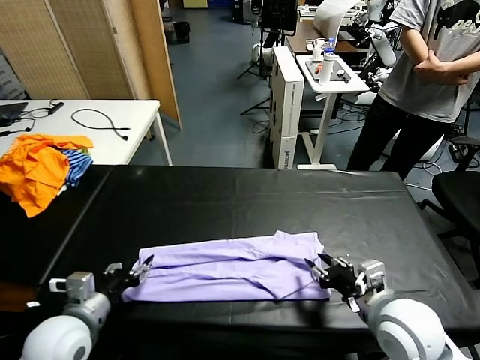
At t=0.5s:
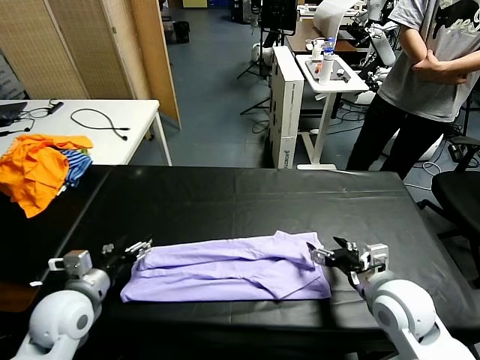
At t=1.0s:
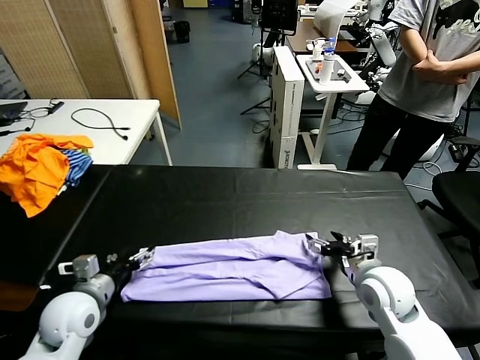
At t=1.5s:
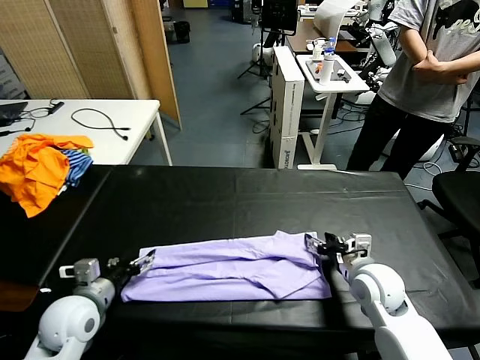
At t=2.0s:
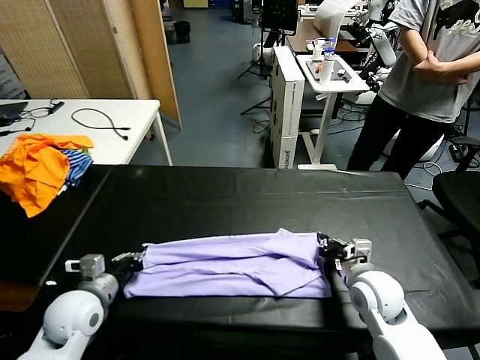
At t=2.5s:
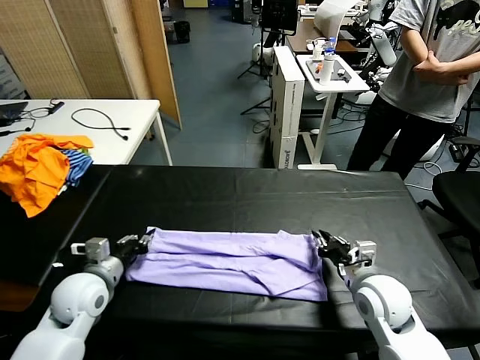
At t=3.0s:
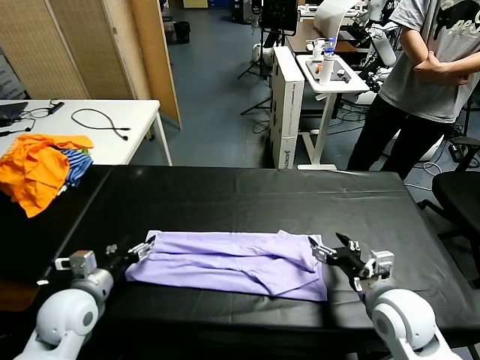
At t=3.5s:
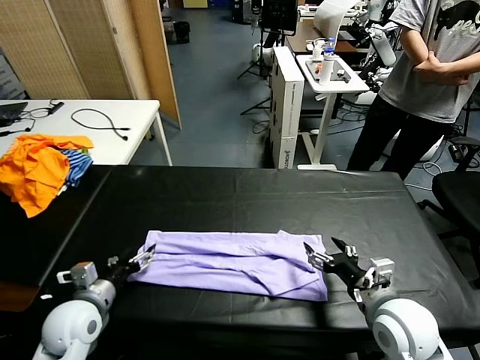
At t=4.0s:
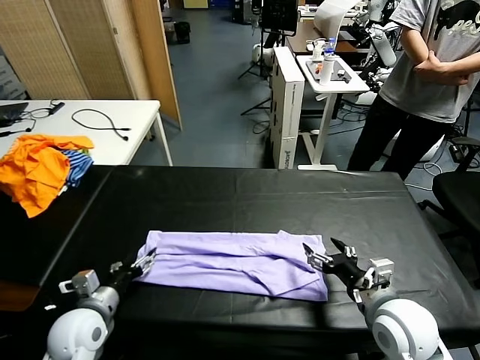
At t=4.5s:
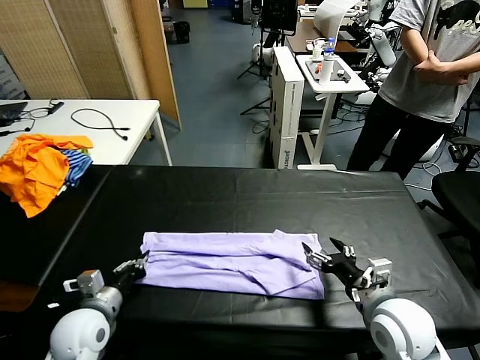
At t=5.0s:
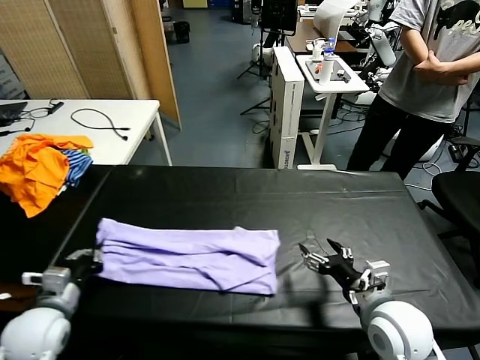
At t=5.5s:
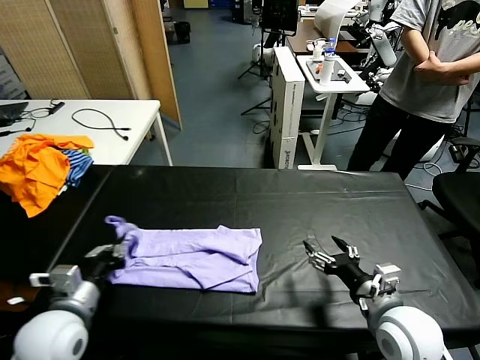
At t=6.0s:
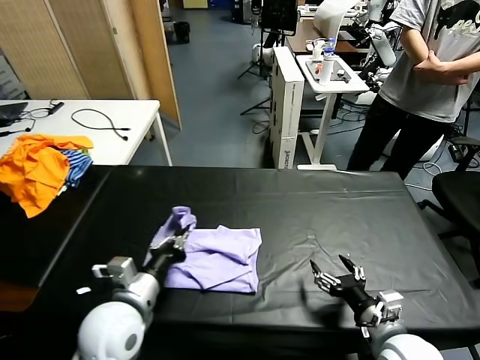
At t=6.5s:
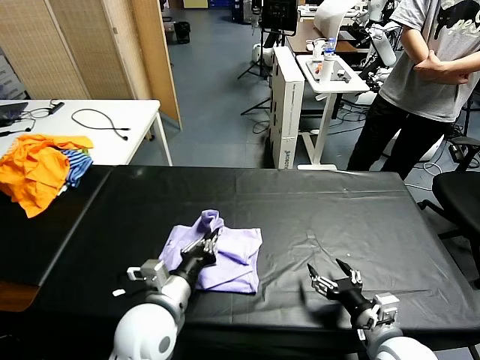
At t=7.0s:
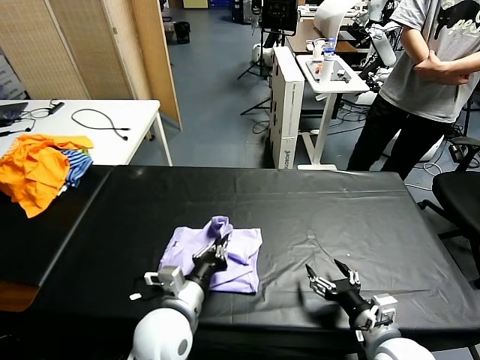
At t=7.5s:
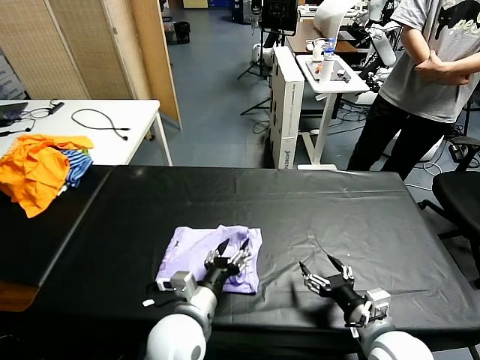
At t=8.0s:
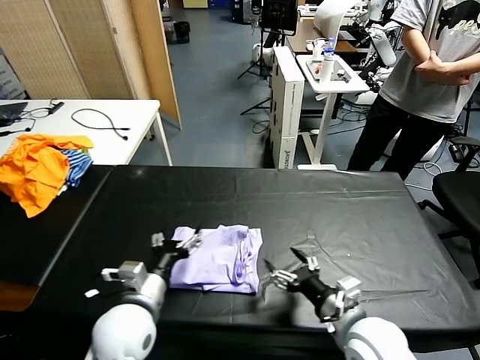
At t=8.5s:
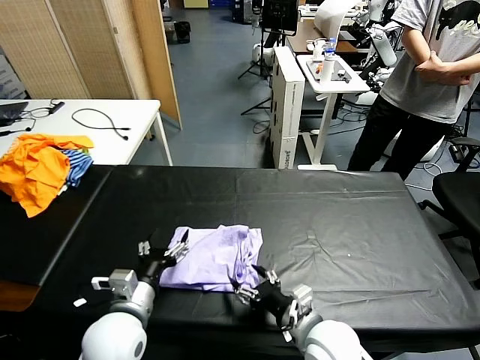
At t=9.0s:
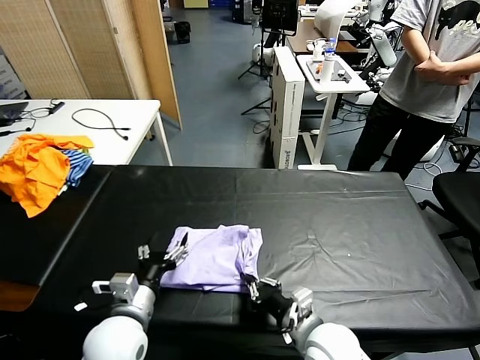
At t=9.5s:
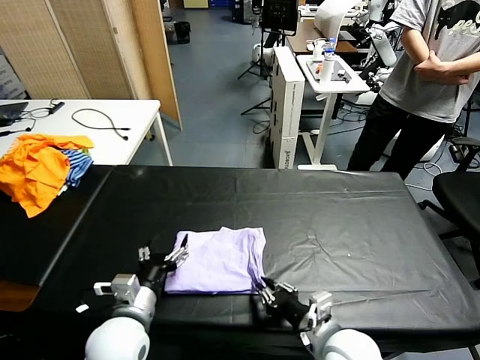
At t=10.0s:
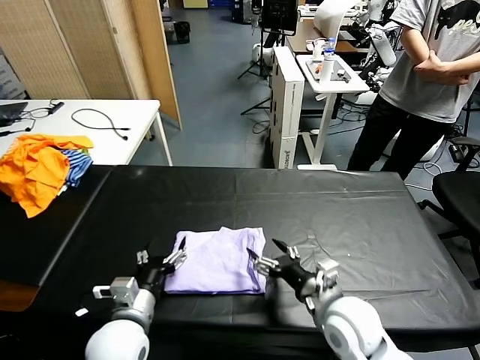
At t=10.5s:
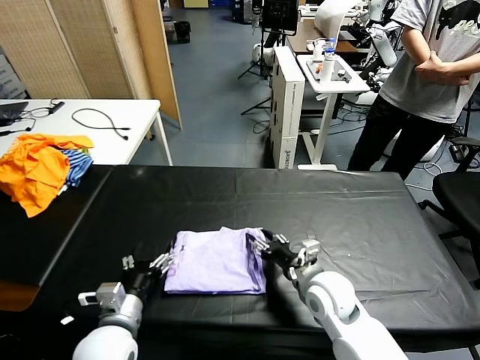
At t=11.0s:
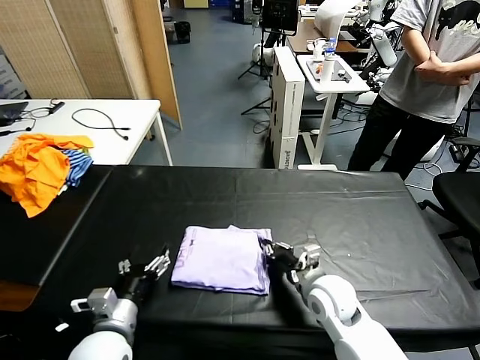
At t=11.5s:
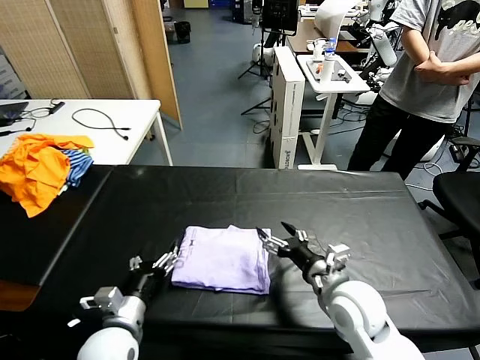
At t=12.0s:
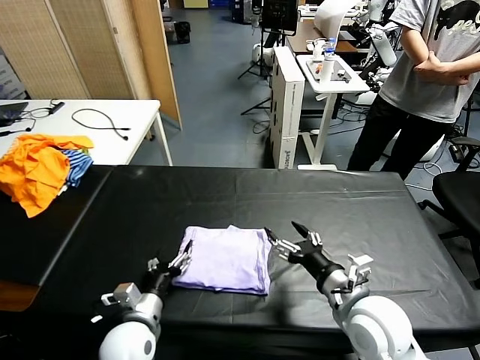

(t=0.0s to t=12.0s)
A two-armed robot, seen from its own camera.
Task of the whole recording: fold and organize the clothes.
Step, t=0.0s - t=2.5s: use both grippers to drag the upper edge of the fabric backward and fold it over the lower edge.
Step, t=3.0s - t=4.0s: use the left gripper to clamp the left edge of the fabric.
Step, t=5.0s - t=11.0s: use the left gripper to drag the left edge of the fabric to the left and folds it over the right edge.
t=0.0s - t=2.0s: The right gripper moves downward and forward, approximately 10 cm, and closes. The left gripper heads forward, covering approximately 5 cm, and closes.
t=2.0s - t=4.0s: The right gripper is displaced backward by about 5 cm, and opens its fingers, while the left gripper opens its fingers.
t=4.0s - t=6.0s: The right gripper moves some 5 cm; the left gripper travels to the right and upward by about 15 cm, and closes up.
t=6.0s - t=8.0s: The left gripper goes to the right and returns, roughly 10 cm each way, and opens its fingers. Meanwhile the right gripper travels to the left by some 10 cm.
t=8.0s - t=10.0s: The right gripper closes and opens again.
t=10.0s - t=12.0s: The left gripper travels downward by roughly 5 cm, while the right gripper shifts by approximately 5 cm, and closes, then reopens.

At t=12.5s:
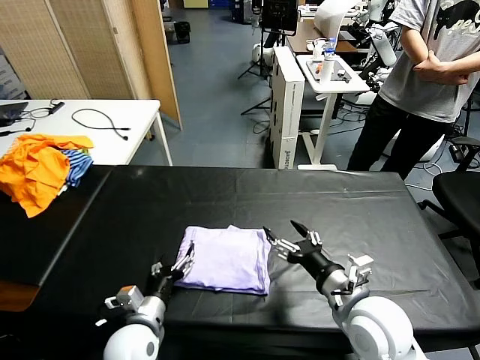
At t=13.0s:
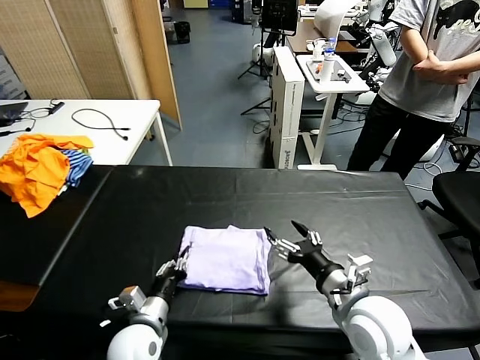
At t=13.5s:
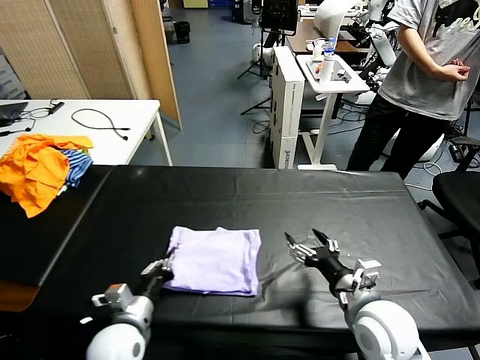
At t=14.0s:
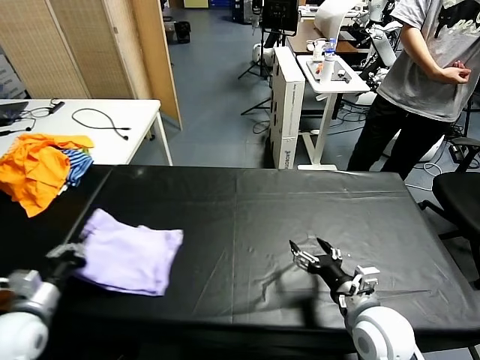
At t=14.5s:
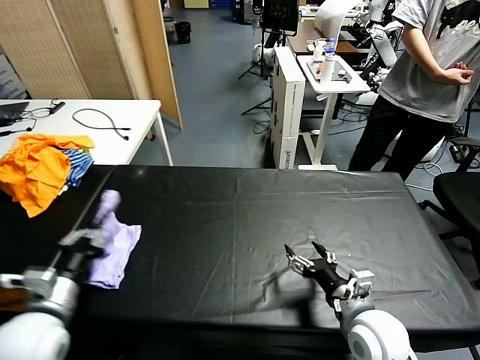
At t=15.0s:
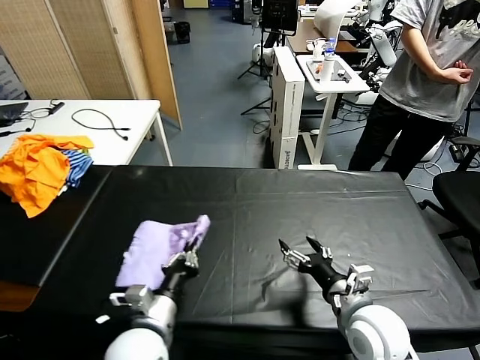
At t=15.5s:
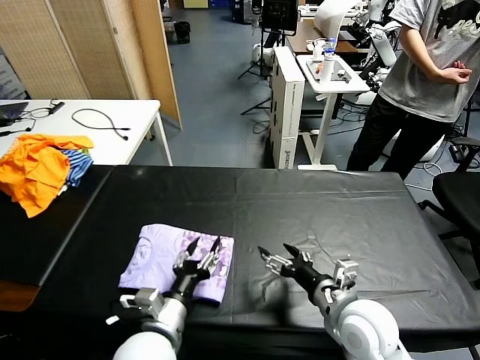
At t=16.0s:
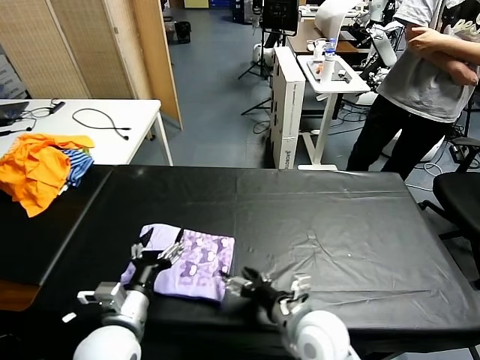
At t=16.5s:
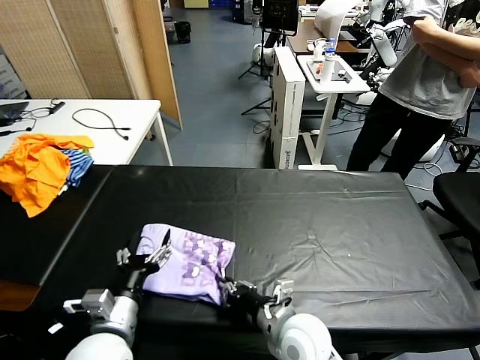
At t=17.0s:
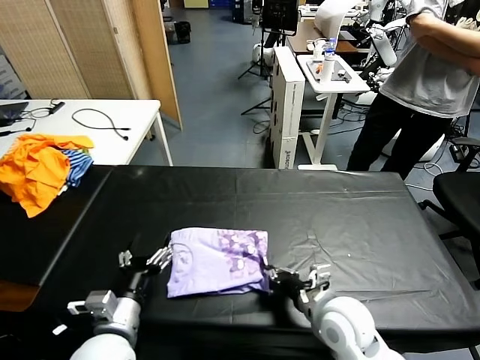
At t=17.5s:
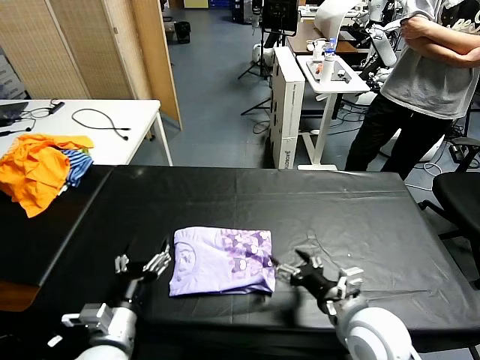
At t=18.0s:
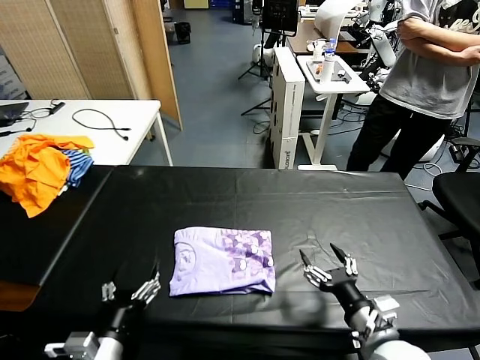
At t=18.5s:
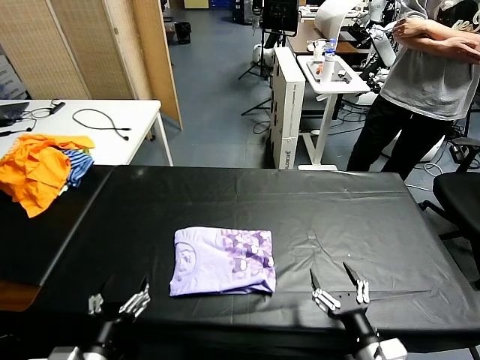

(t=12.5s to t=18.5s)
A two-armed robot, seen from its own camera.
Task of the whole recording: fold and organize the clothes.
Step, t=12.5s - t=15.5s: Flip the folded clothes over with left gripper.
Step, t=16.0s - t=17.0s: Drag the clothes to the center of the table.
t=12.5s - t=14.5s: The left gripper shifts about 20 cm upward and to the left, and closes up. The right gripper heads downward, covering some 5 cm.
t=14.5s - t=16.5s: The right gripper shifts roughly 15 cm to the left, and closes up. The left gripper heads to the right and downward, covering approximately 10 cm, and opens.
t=16.5s - t=18.5s: The left gripper moves backward, roughly 10 cm. Meanwhile the right gripper moves to the right and backward, about 20 cm, and opens.

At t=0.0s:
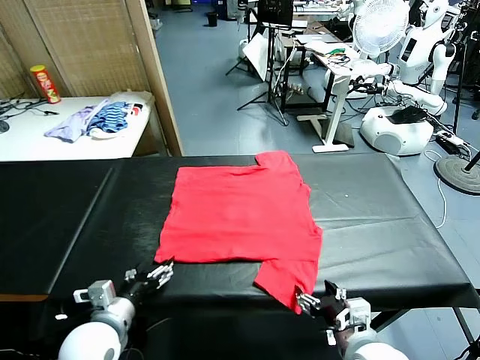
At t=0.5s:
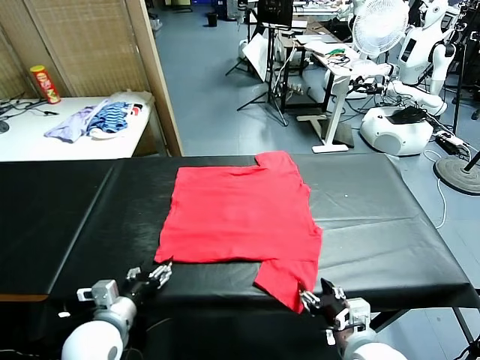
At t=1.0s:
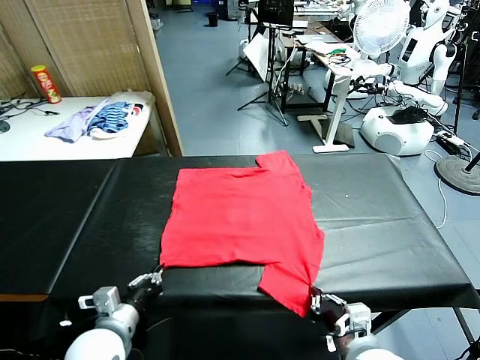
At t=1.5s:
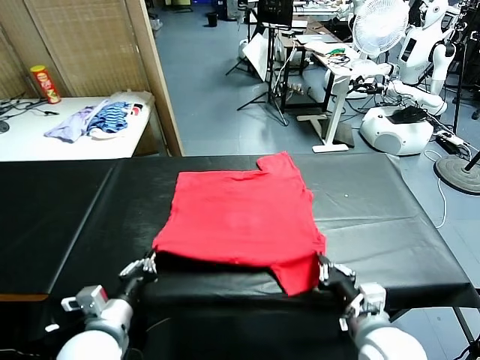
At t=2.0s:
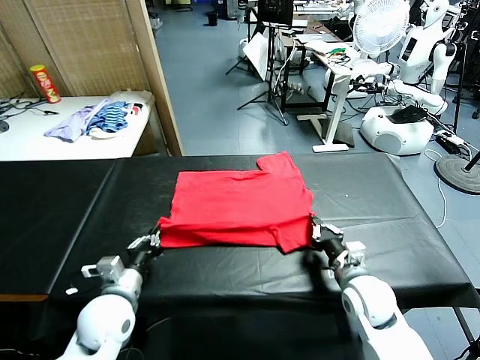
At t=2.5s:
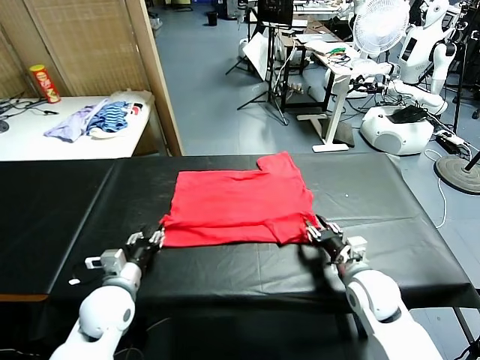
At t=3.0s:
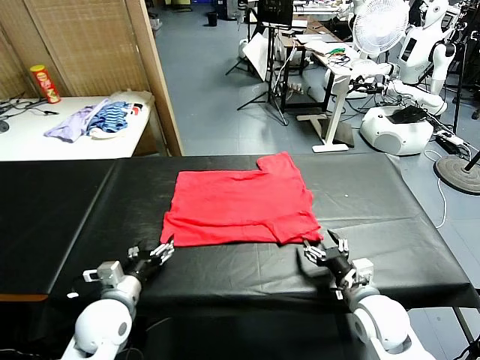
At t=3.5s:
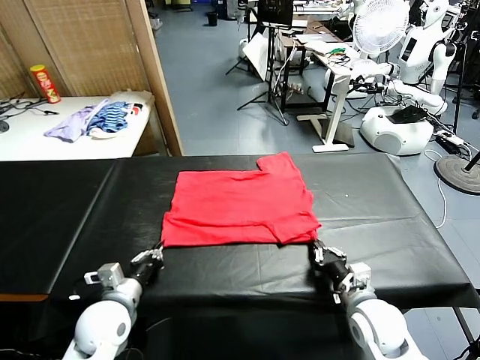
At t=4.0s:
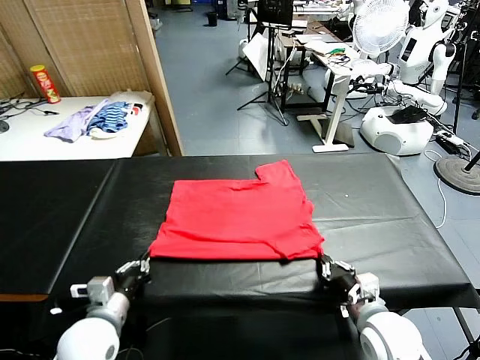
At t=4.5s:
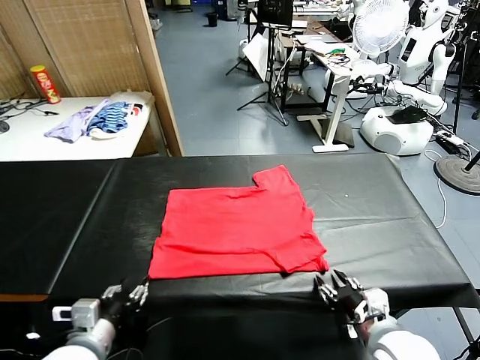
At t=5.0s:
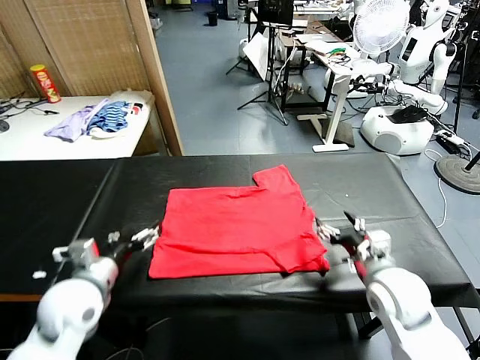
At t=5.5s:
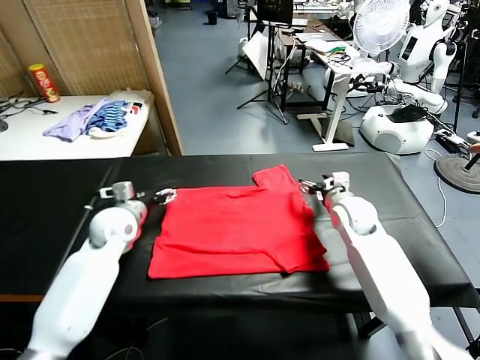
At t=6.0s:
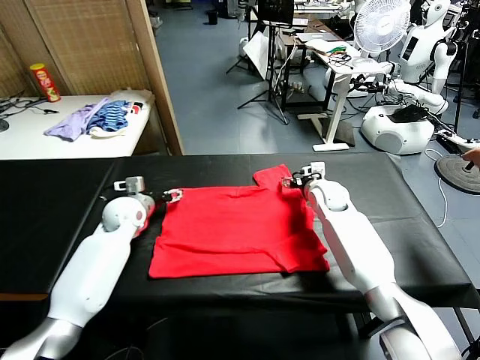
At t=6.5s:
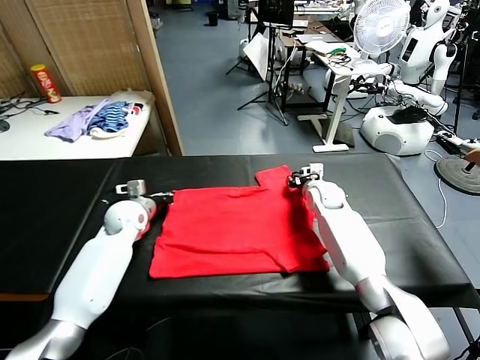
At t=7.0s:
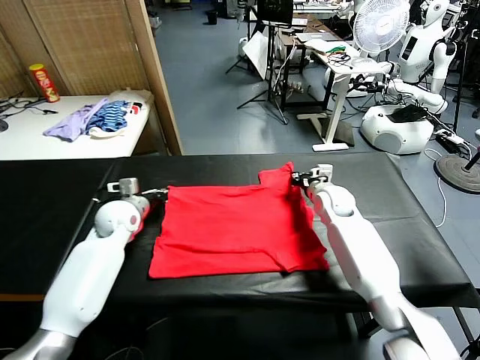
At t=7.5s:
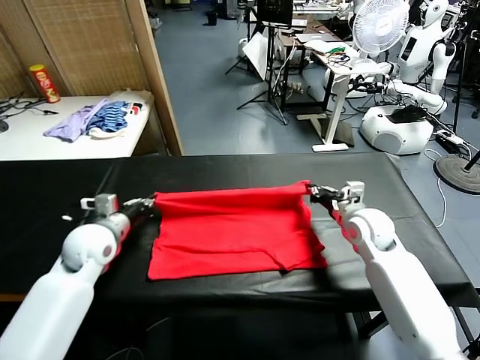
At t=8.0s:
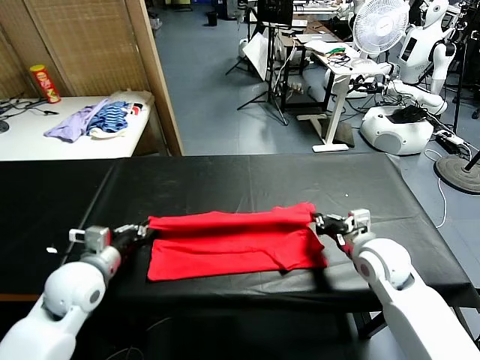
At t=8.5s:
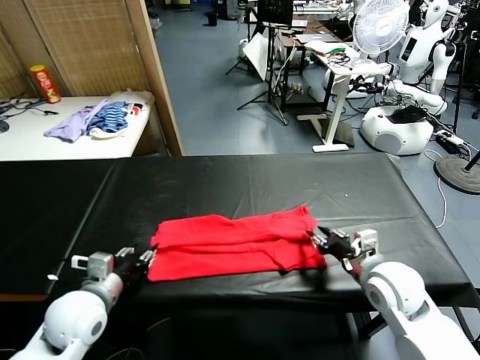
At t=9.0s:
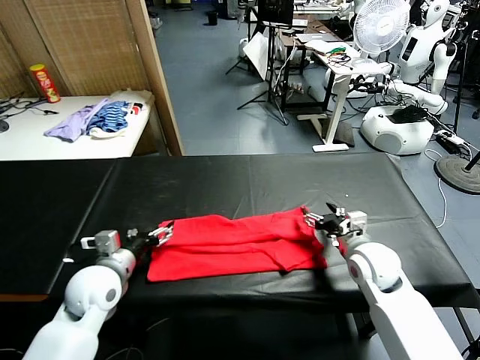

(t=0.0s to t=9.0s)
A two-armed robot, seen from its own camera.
Task of the whole recording: fold and organize the clothes.
Step, t=0.0s - t=1.0s: use both grippers simultaneously to clamp the lower edge of the clothing fabric.
Step, t=1.5s - t=2.5s: use both grippers to drag the lower edge of the fabric forward and fold it over the upper edge.
Step, t=3.0s - t=4.5s: Drag the clothes downward with both gripper.
Step, t=5.0s - t=7.0s: use both grippers simultaneously to clamp the upper edge of the clothing fabric.
Step, t=7.5s - t=8.5s: use both grippers to drag the upper edge of the fabric backward and fold it over the lower edge.
t=2.0s - t=4.5s: The two grippers go approximately 15 cm backward and upward. The left gripper opens its fingers. The right gripper opens up.
t=4.5s - t=7.0s: Both grippers travel together forward, roughly 30 cm. The left gripper closes its fingers. Meanwhile the right gripper closes up.
t=7.0s - t=9.0s: The two grippers go roughly 15 cm backward. The right gripper opens; the left gripper opens.
